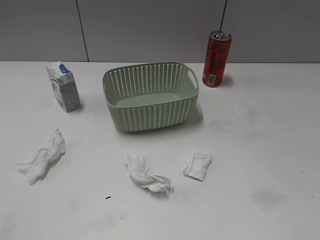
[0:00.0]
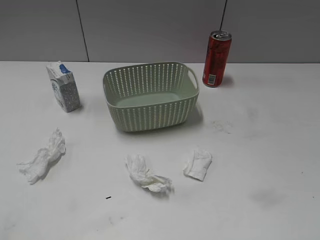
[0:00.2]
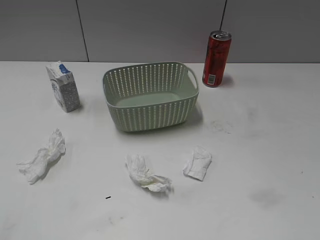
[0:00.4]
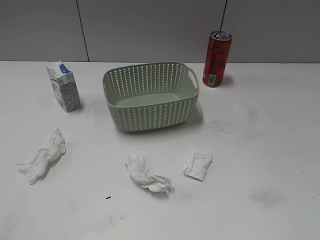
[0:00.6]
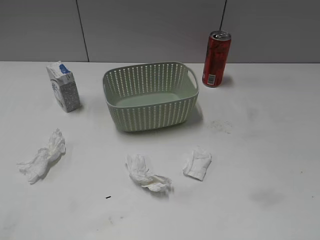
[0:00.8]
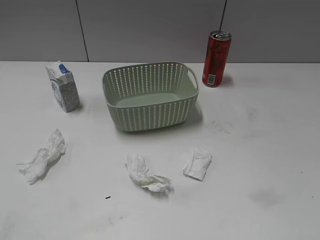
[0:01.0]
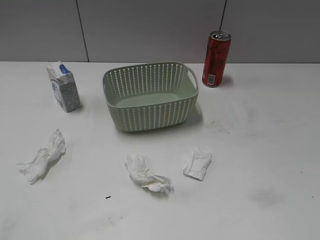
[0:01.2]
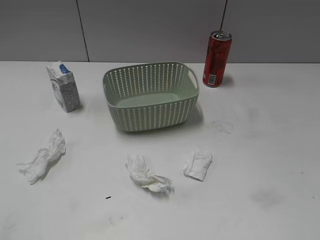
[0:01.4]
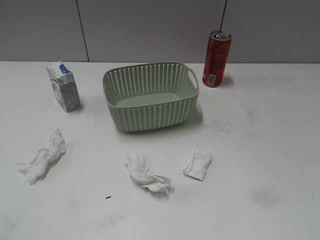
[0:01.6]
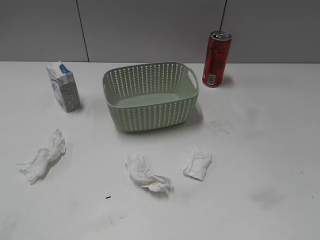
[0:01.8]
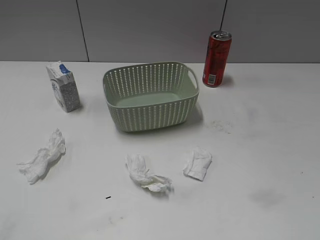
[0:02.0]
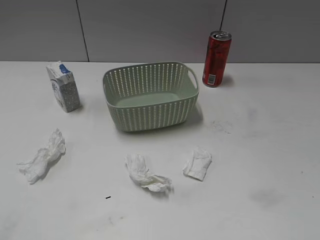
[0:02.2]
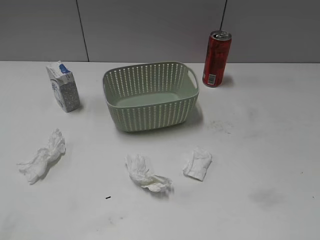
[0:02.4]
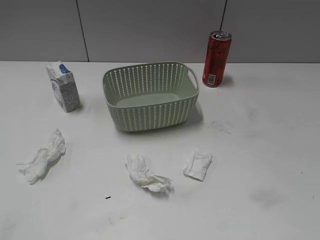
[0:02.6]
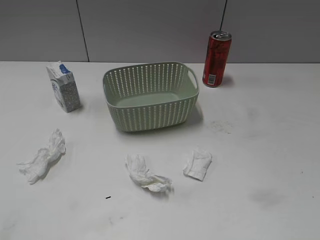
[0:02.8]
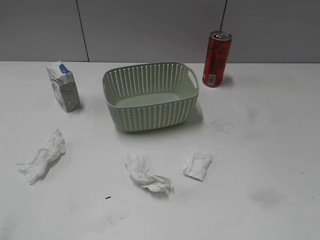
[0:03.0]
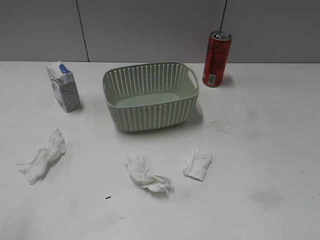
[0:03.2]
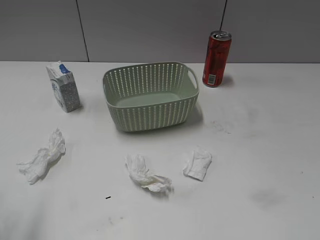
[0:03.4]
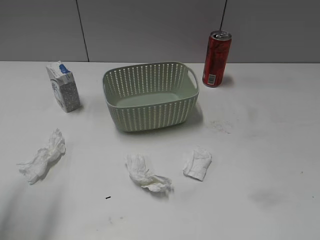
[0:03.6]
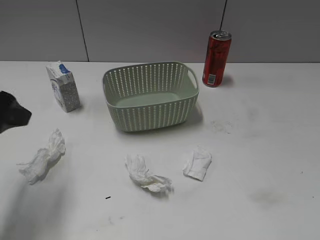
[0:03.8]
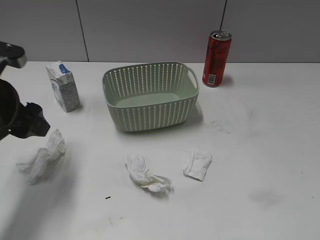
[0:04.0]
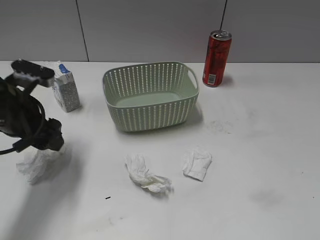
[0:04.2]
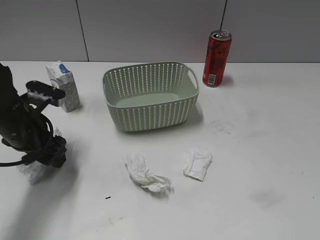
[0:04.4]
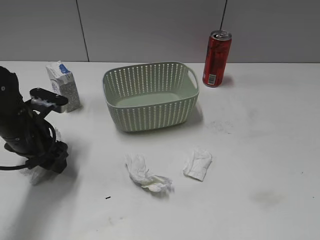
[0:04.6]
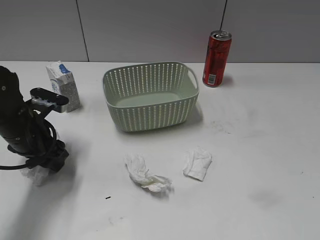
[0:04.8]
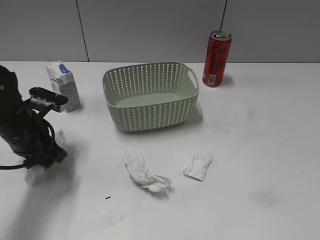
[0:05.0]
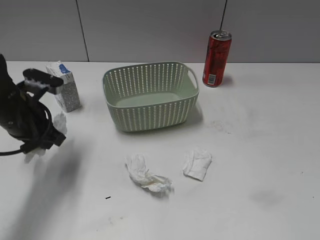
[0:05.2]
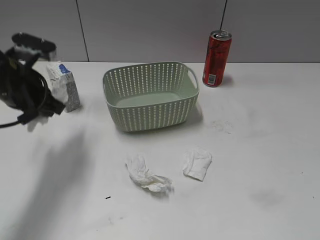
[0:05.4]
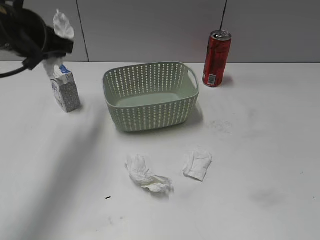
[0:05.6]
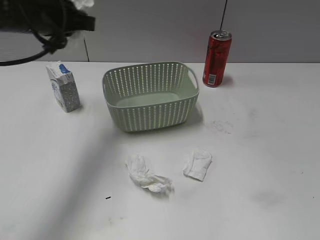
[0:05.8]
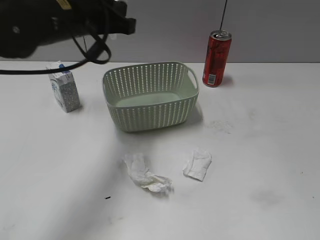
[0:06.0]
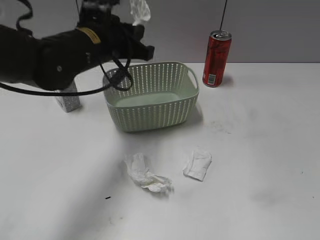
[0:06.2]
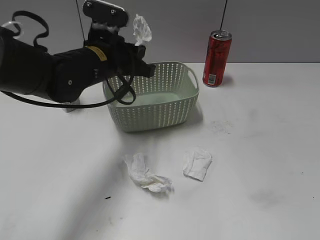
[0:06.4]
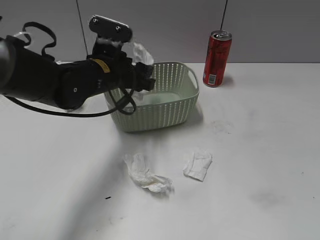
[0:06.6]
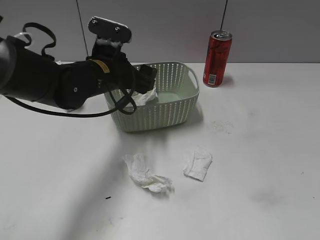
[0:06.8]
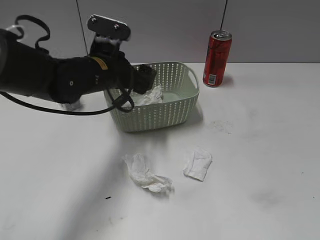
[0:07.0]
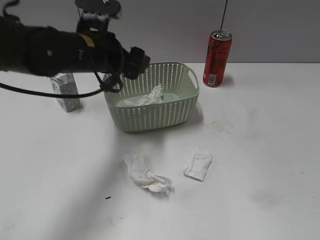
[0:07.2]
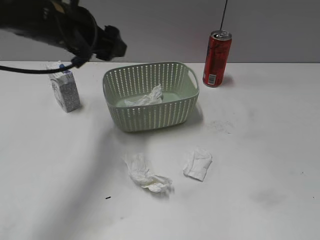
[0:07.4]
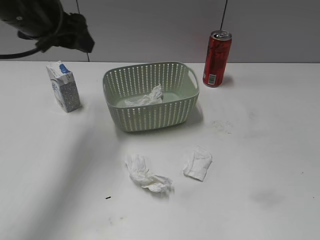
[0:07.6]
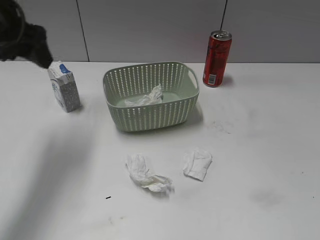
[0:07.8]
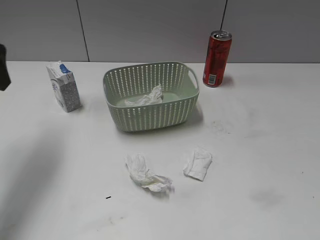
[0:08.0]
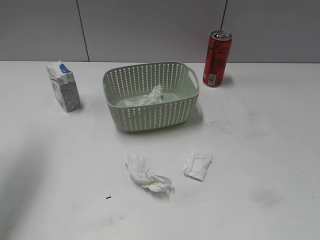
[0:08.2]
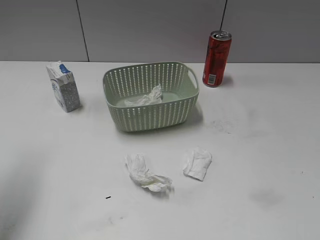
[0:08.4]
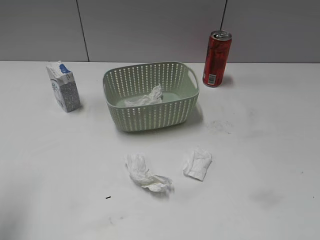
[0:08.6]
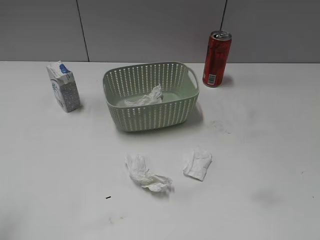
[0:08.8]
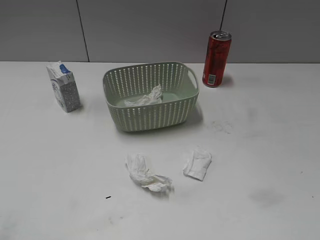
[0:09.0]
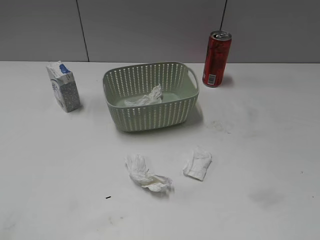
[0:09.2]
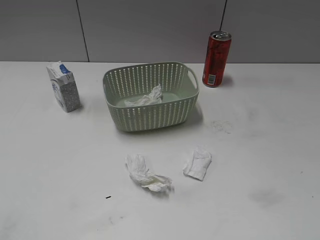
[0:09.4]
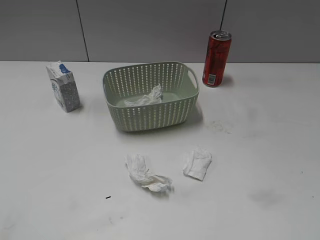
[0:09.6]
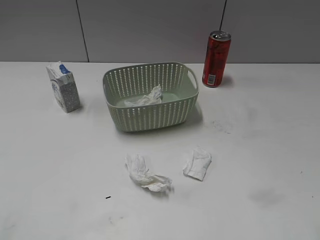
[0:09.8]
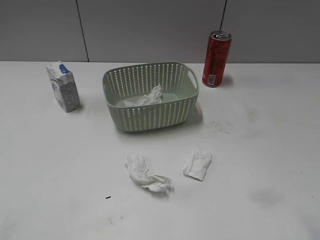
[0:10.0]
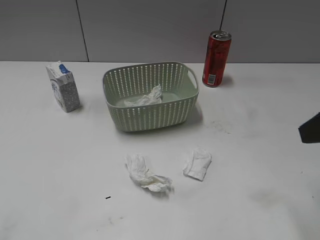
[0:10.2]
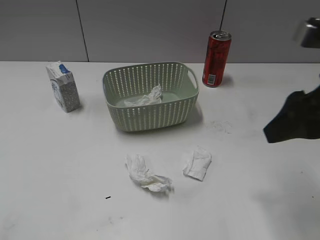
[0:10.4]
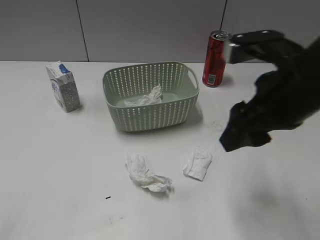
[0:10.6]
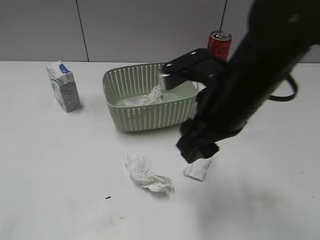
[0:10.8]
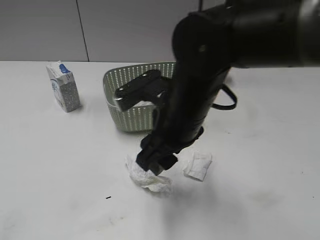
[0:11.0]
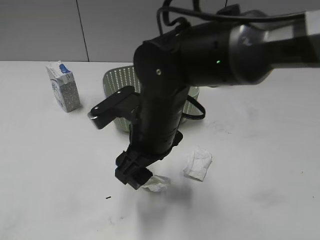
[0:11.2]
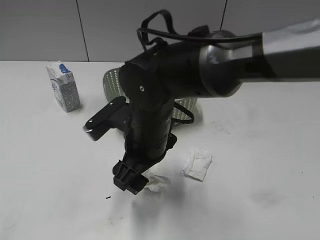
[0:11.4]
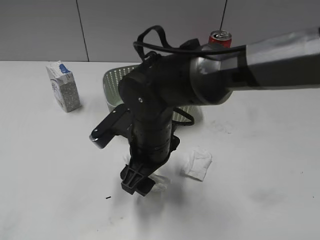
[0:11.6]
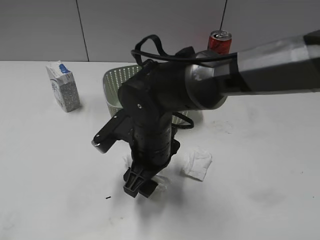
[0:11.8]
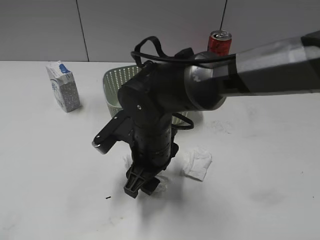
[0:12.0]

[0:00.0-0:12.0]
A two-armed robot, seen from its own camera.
Step, 0:03.4 to 0:05.0: Grasp the waste paper with left gripper.
Step, 0:05.2 to 0:06.8: Place the waste paper in the basket with left gripper.
0:03.0 to 0:04.4: The left gripper travels forward and downward by roughly 30 cm.
0:04.4 to 0:06.0: The left gripper travels upward and to the right by approximately 15 cm, and closes.
0:06.0 to 0:07.6: The left gripper shifts roughly 10 cm to the left, reaches about 10 cm downward, then returns, and opens its fingers.
0:07.6 to 0:09.0: The left gripper travels backward and to the left by some 30 cm.
0:09.0 to 0:10.4: The right gripper goes about 25 cm forward and to the left.
0:10.4 to 0:12.0: The right gripper heads to the left and downward, covering some 25 cm.

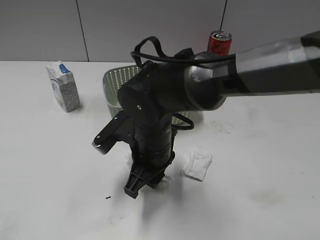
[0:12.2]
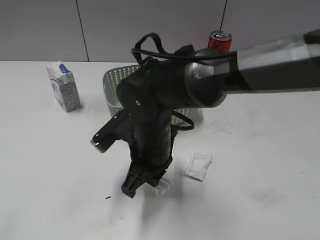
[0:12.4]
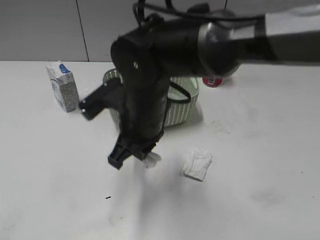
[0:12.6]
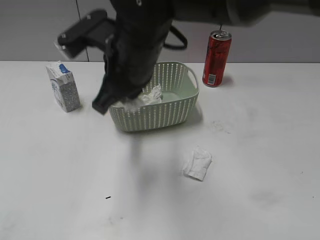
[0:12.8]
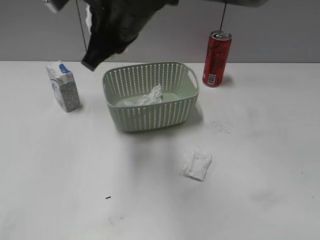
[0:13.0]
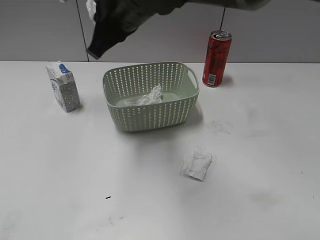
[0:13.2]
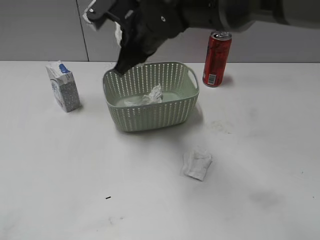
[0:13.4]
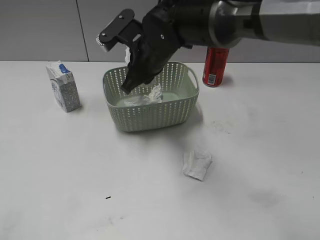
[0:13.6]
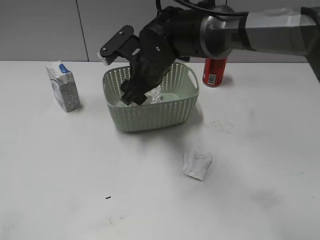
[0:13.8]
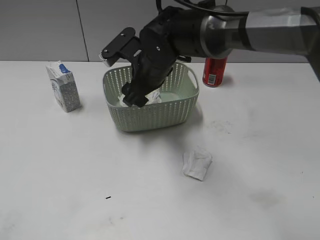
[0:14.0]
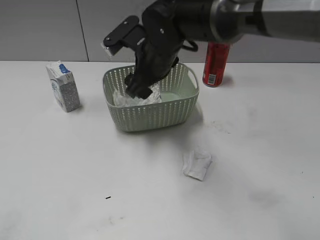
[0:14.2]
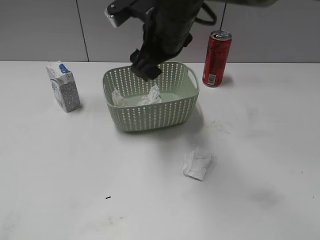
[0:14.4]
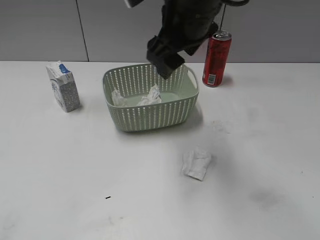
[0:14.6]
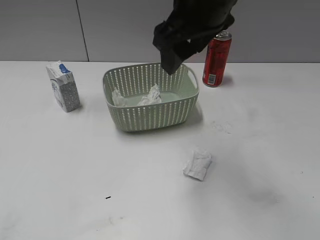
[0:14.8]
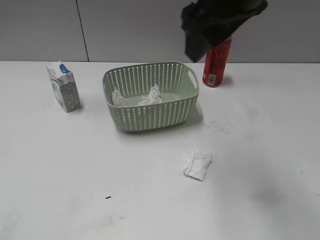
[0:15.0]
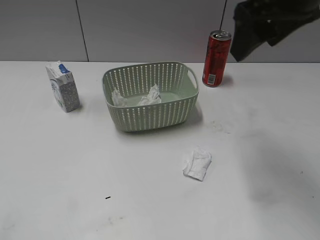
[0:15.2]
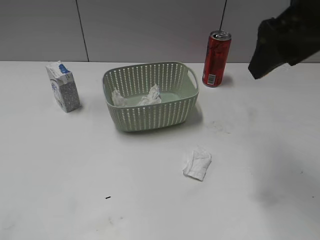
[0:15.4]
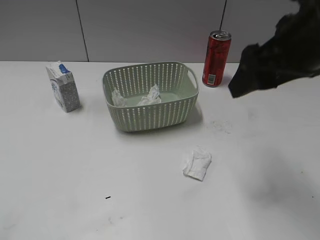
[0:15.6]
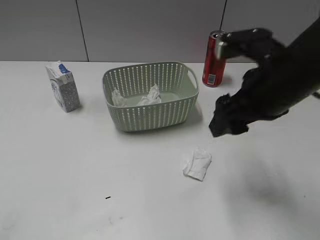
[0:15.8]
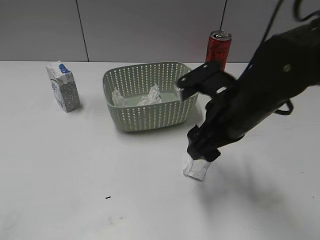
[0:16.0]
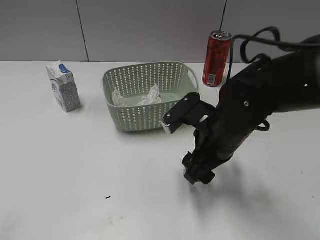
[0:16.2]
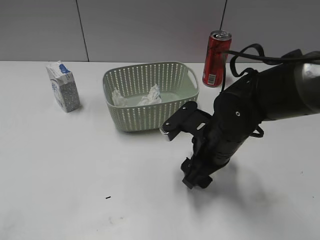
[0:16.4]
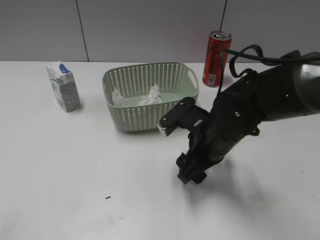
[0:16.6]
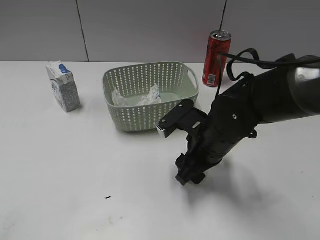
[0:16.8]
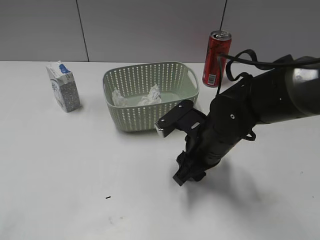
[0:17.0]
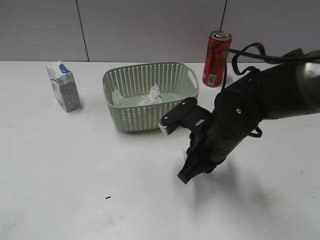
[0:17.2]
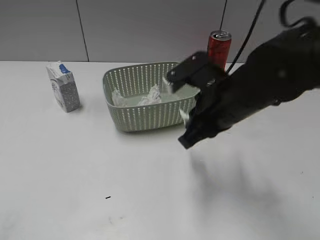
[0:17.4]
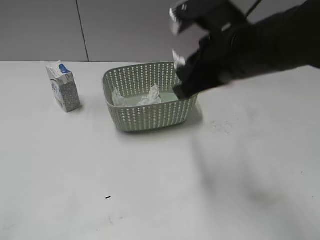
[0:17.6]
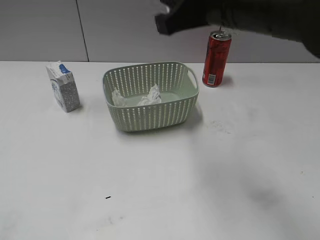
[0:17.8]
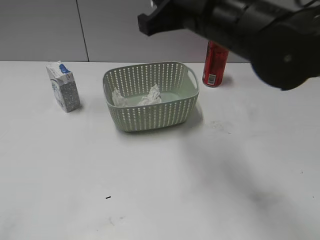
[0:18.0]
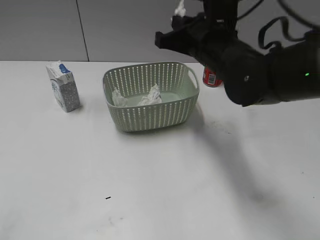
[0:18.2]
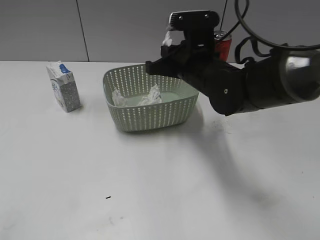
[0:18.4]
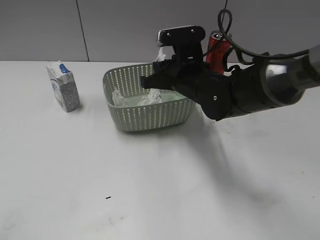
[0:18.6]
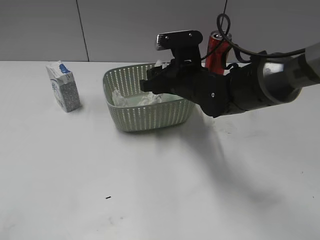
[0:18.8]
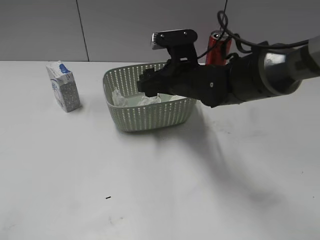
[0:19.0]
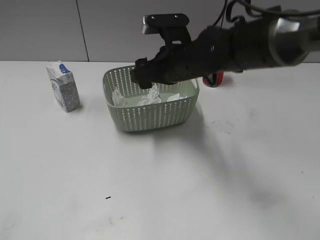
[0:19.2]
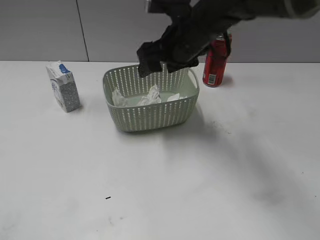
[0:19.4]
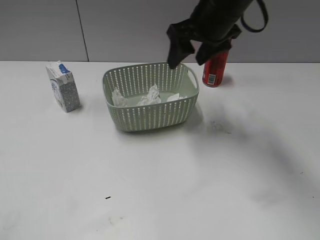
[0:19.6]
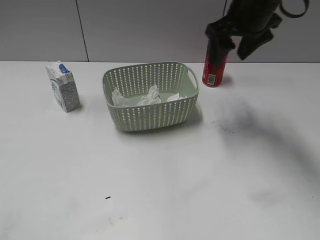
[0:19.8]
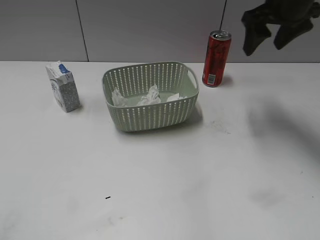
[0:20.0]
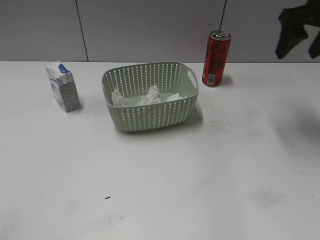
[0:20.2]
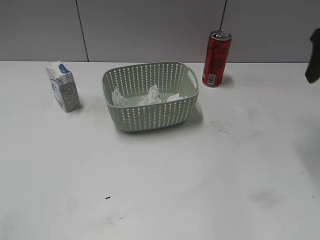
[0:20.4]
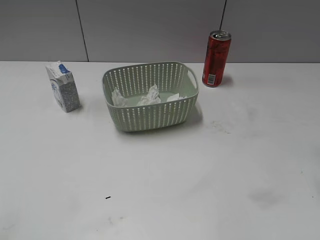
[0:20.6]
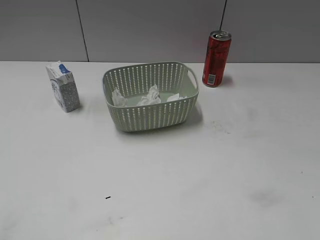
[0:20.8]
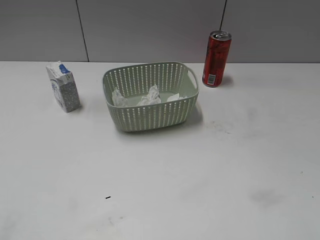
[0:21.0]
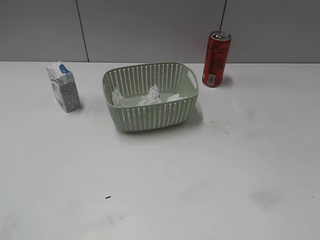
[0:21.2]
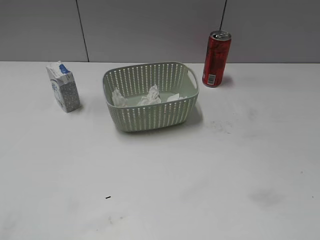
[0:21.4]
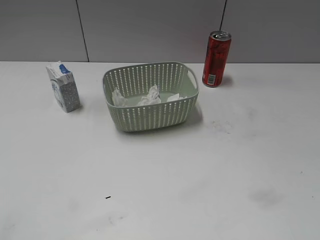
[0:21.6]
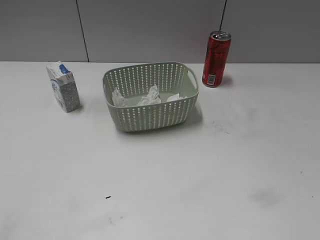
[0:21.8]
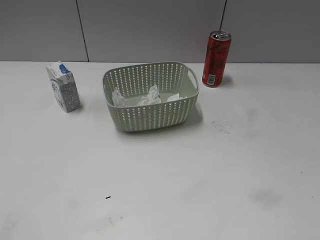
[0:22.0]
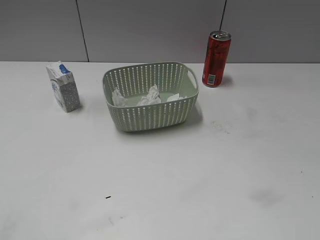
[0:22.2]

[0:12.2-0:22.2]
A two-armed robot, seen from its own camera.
Step, 0:12.6 to 0:14.2: Place the waste paper in the basket with right gripper.
Step, 0:14.4 to 0:17.2: Grasp the waste paper with right gripper.
Step, 0:17.4 to 0:19.0: Place the waste paper in the basket with right gripper.
0:12.2 to 0:13.6: The right gripper moves forward and upward, some 15 cm.
0:13.6 to 0:15.0: The right gripper shifts some 25 cm upward, to the right and backward, and opens its fingers.
0:15.0 to 0:16.4: The right gripper travels downward by roughly 25 cm.
0:16.4 to 0:18.0: The right gripper travels upward by about 15 cm, and closes.
0:18.0 to 0:19.4: The right gripper shifts roughly 5 cm forward, moves some 10 cm downward and comes back, and opens up.
0:19.4 to 0:20.8: The right gripper shifts roughly 35 cm to the right and backward.
